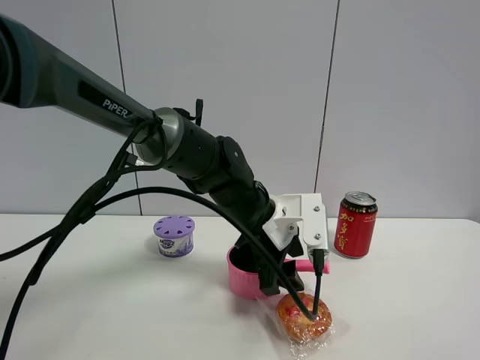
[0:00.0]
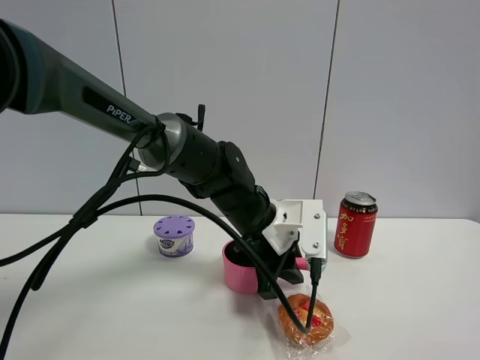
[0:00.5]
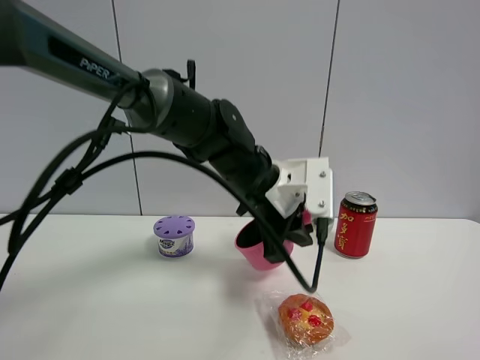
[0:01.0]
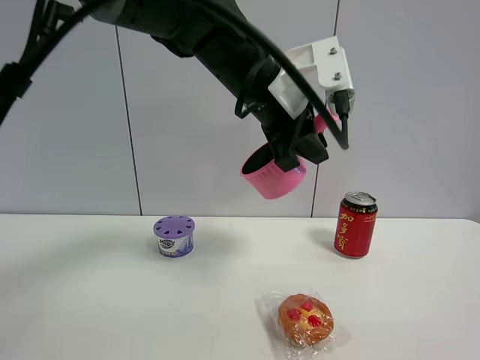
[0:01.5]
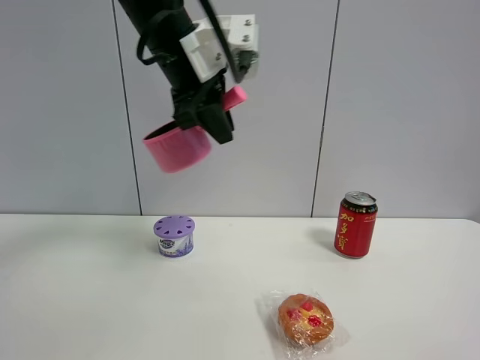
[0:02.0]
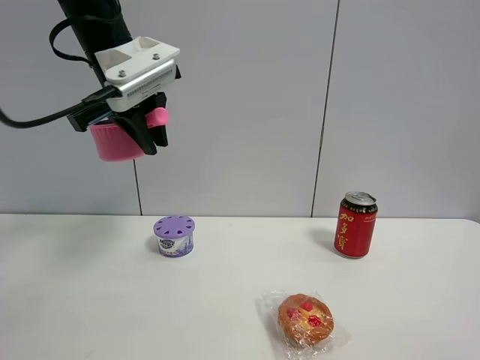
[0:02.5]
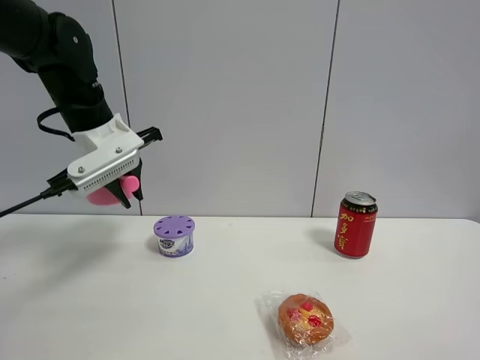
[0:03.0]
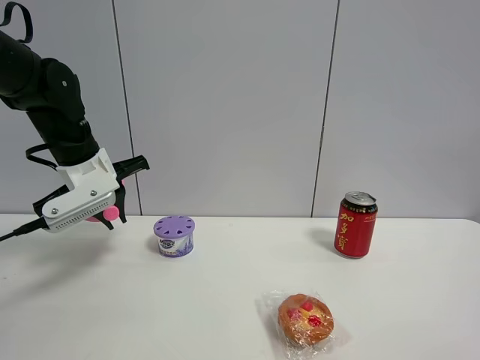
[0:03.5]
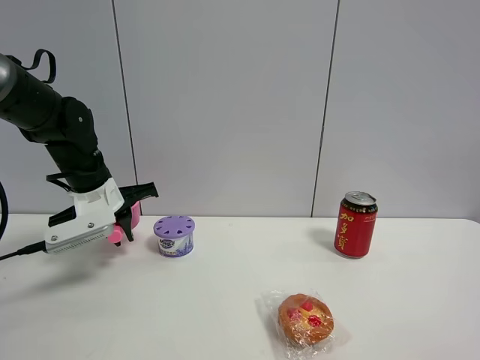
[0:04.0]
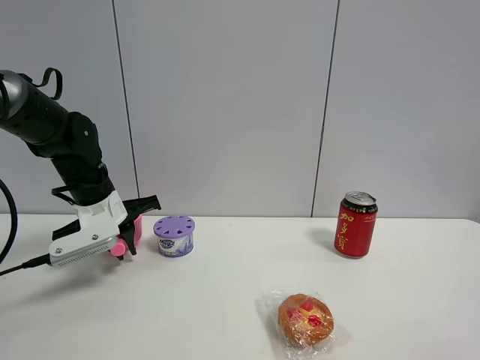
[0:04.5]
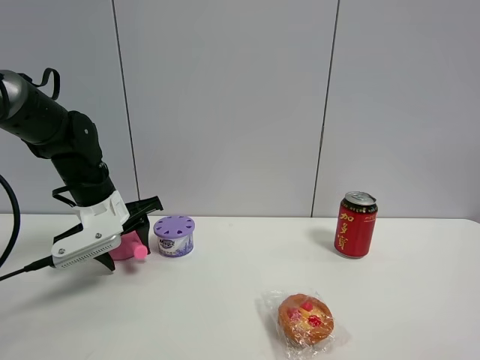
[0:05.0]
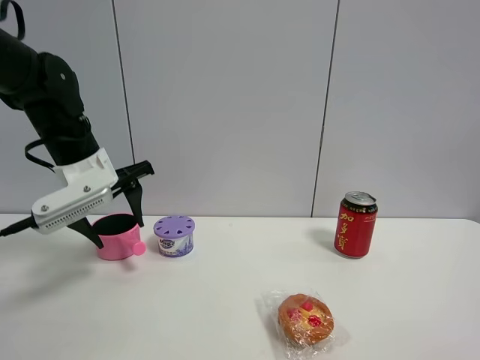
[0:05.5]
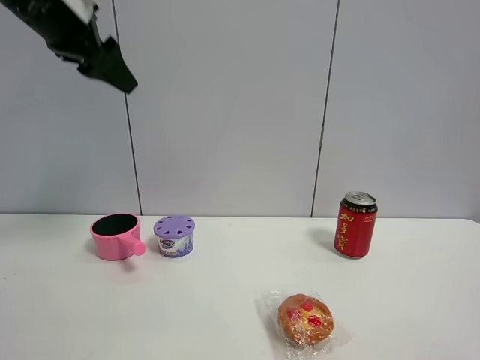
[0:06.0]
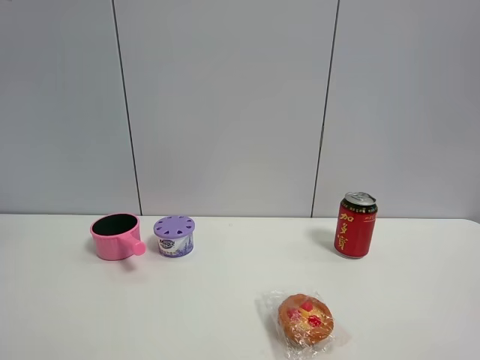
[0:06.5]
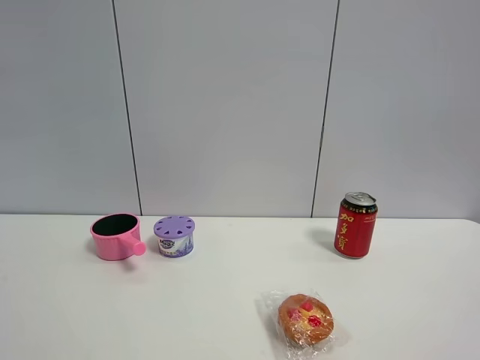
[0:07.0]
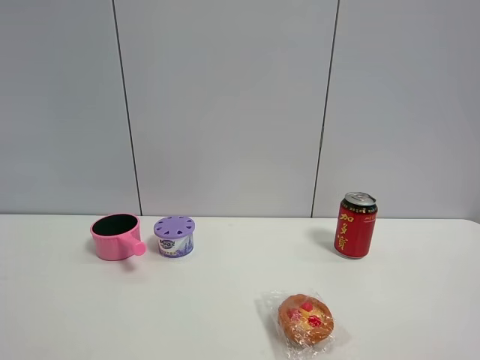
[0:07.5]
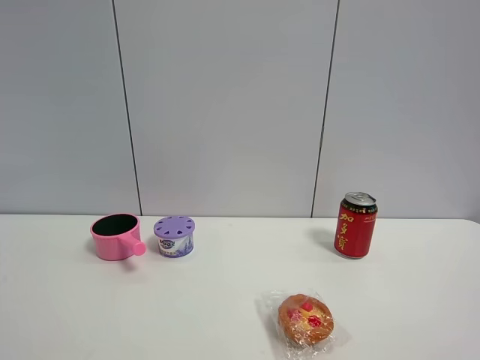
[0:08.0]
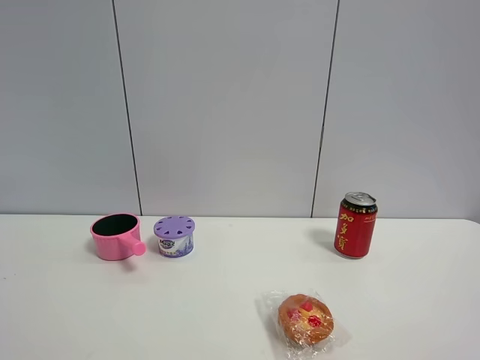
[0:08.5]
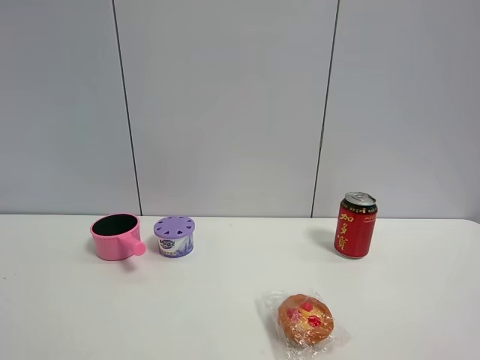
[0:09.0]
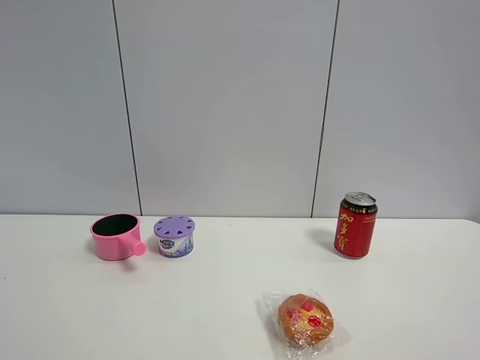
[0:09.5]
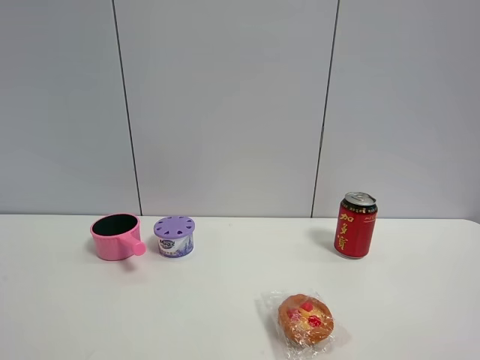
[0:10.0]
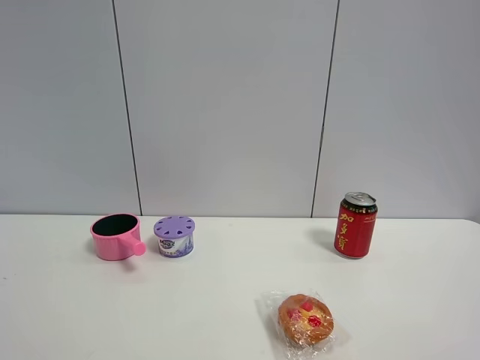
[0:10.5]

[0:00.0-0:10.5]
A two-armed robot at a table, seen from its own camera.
Task of the whole recording: the gripper move the object.
Step, 0:01.0 to 0:05.0: Place the pink pot on the table with the left gripper.
0:00.0 to 0:02.0: The left gripper shifts some 25 cm upward and to the left, and closes up.
0:02.0 to 0:04.0: The left gripper heads downward and to the left, covering roughly 25 cm.
0:04.0 to 0:06.5: The left gripper travels upward and backward by roughly 40 cm, and opens up.

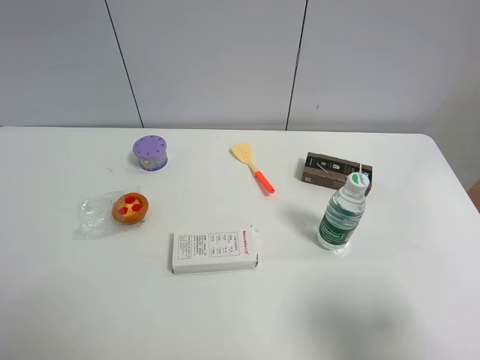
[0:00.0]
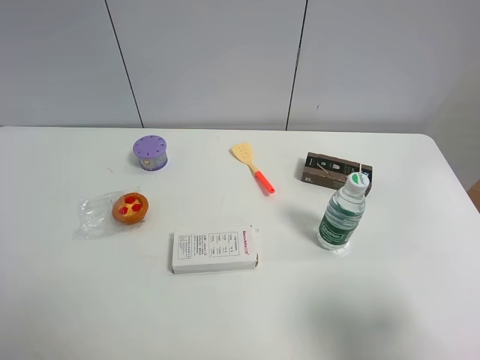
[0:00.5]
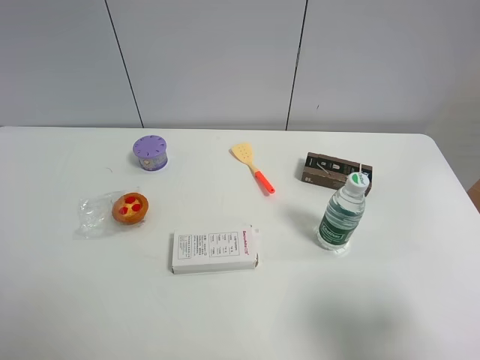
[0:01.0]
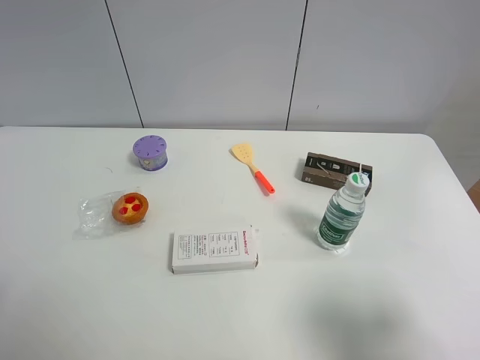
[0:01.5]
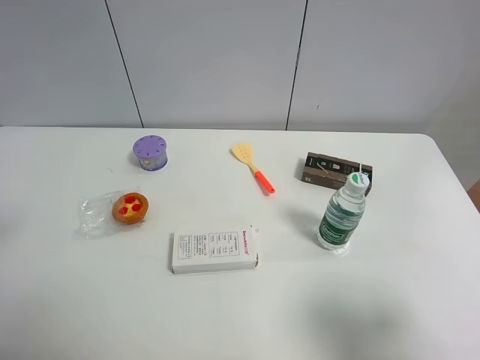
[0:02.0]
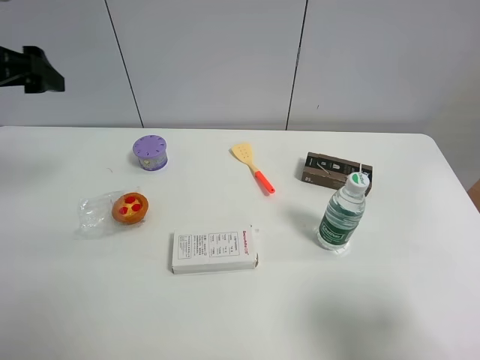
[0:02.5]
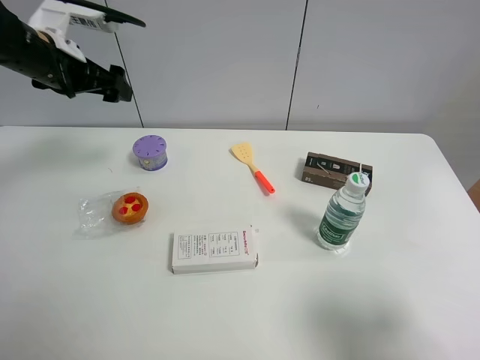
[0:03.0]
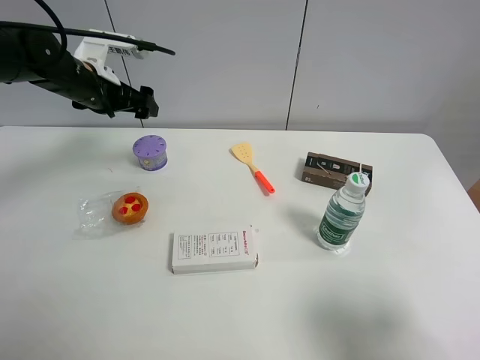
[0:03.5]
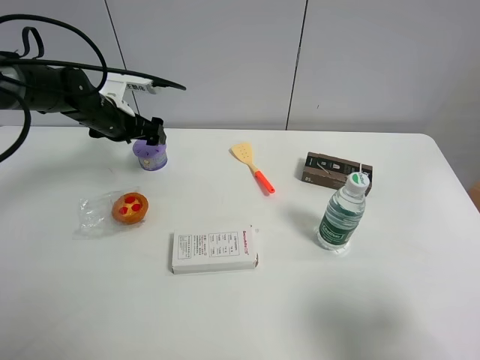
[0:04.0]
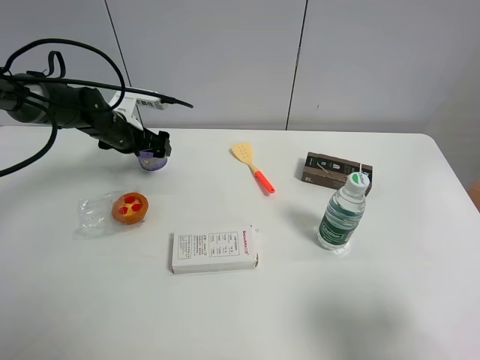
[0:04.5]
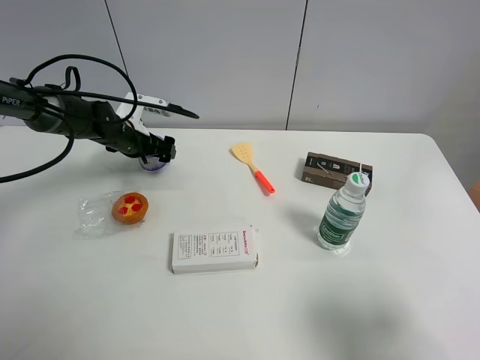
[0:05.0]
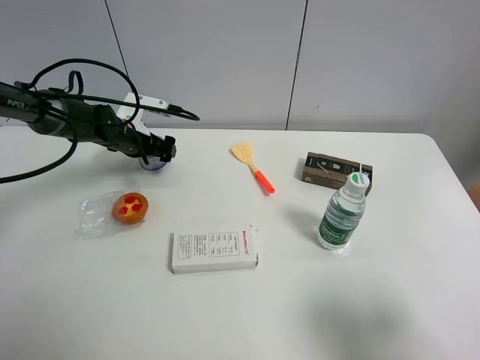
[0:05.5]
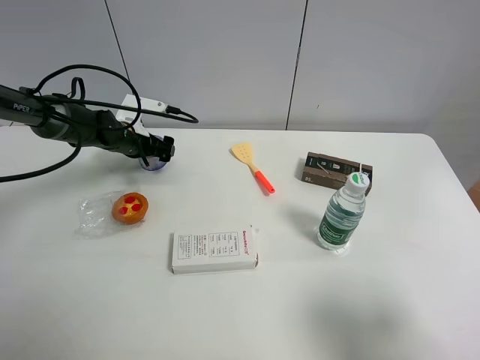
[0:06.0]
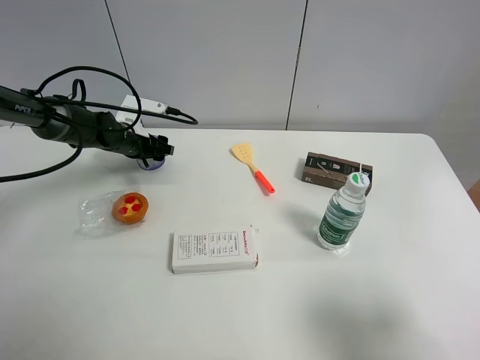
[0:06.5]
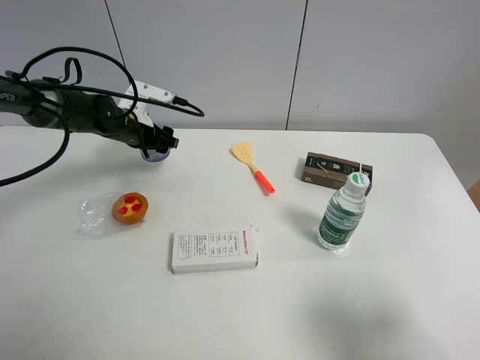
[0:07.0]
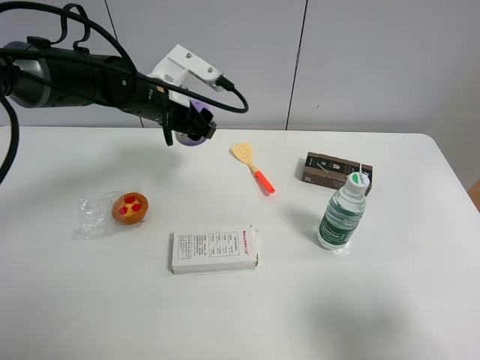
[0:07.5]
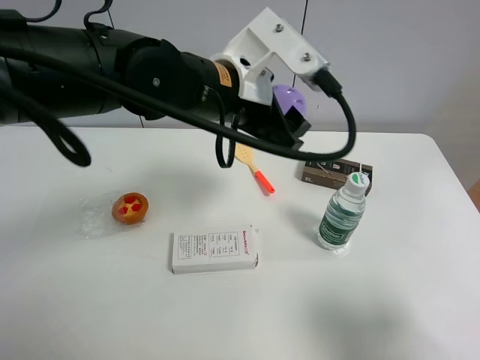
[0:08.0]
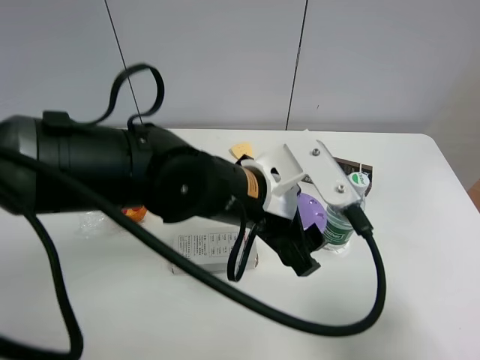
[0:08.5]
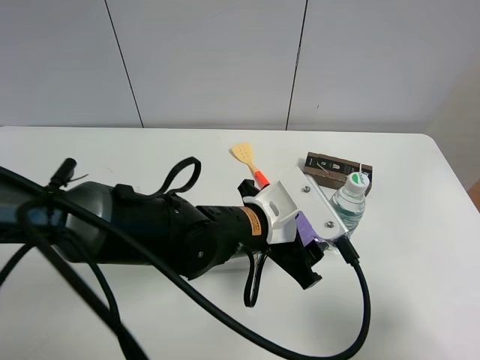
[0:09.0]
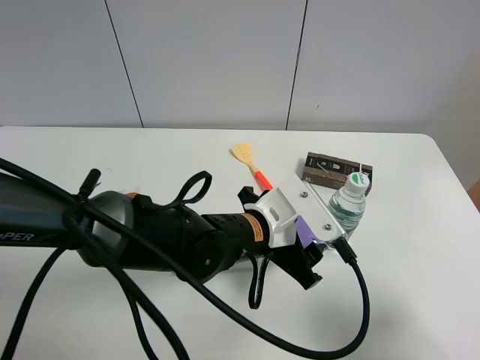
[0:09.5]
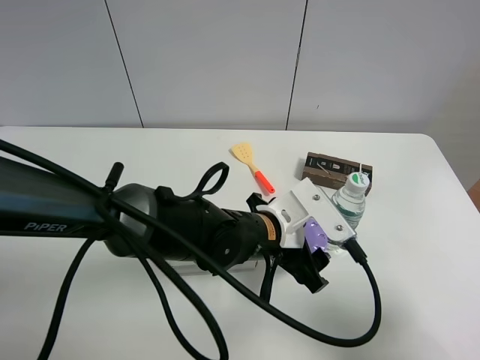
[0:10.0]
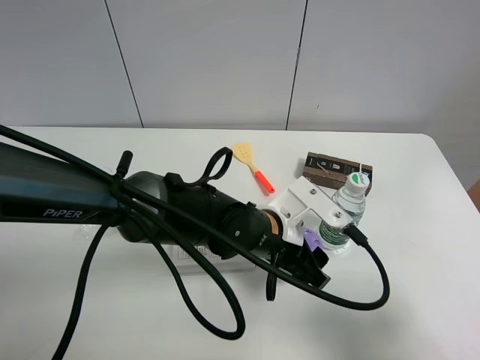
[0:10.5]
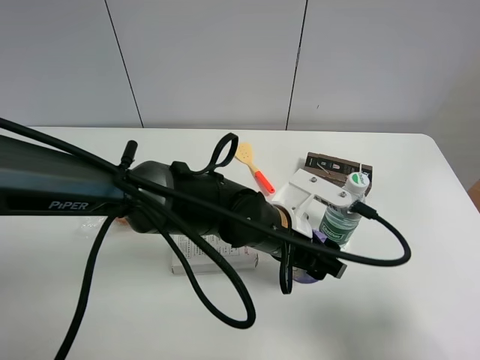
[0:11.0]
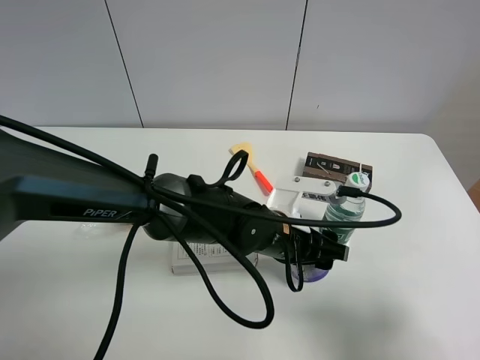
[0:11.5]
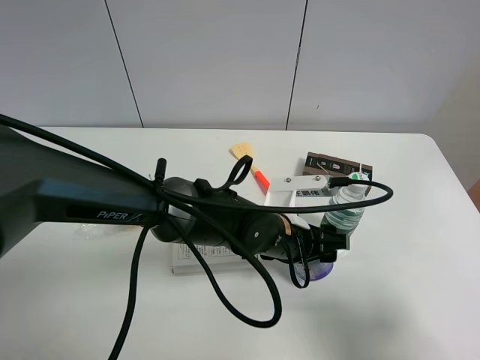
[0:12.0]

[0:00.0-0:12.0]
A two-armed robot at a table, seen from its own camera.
Task of the whole recording: the gripper move the object.
Step, 0:00.0 to 0:06.5: Grasp the Incense box with the left gripper.
0:02.0 to 0:04.0: The left gripper goes some 35 cm forward and downward.
0:04.0 to 0:06.0: The left gripper moves downward, approximately 5 cm.
0:06.0 to 0:08.0: The left gripper goes about 35 cm to the right, upward and backward, and closes its fingers.
0:08.0 to 0:10.0: The left gripper heads downward and backward, covering roughly 15 cm.

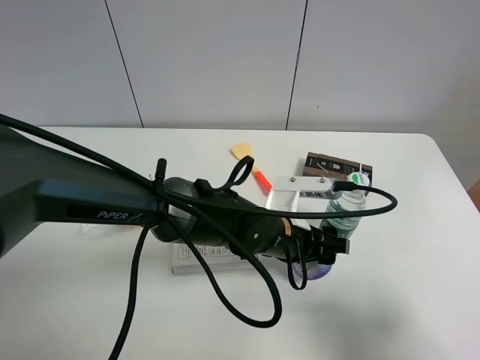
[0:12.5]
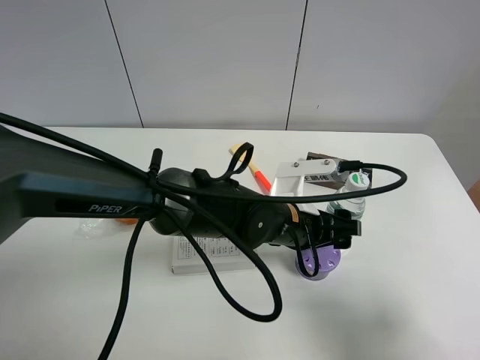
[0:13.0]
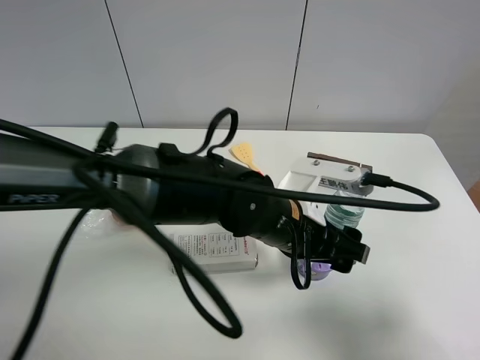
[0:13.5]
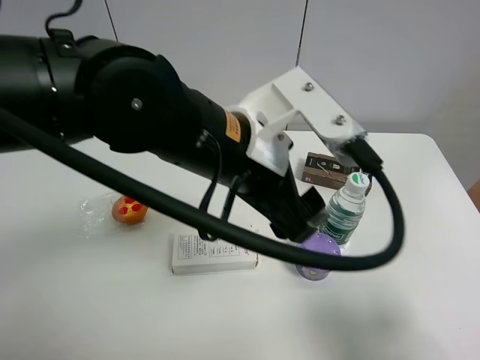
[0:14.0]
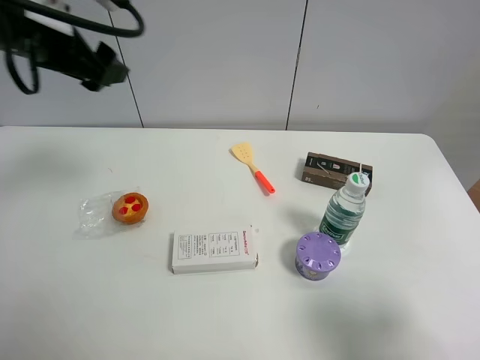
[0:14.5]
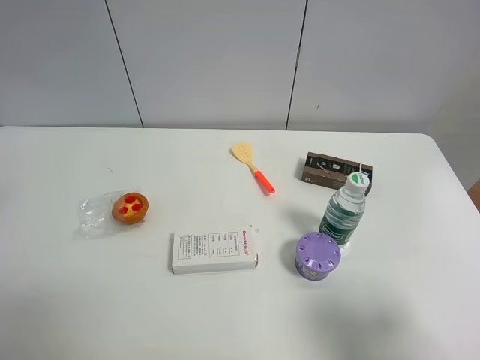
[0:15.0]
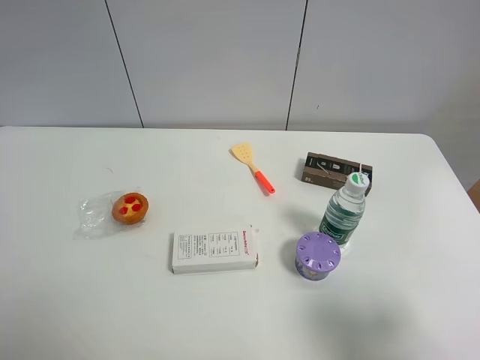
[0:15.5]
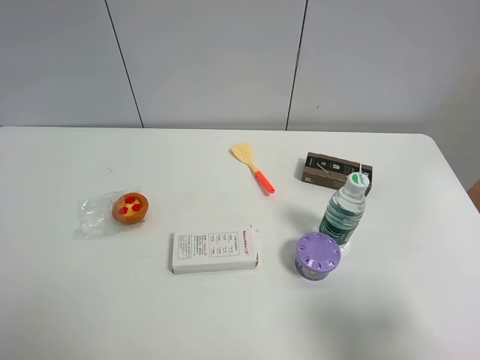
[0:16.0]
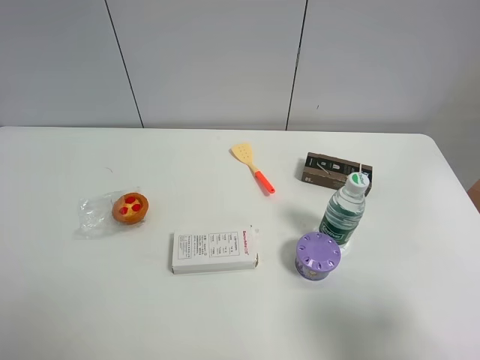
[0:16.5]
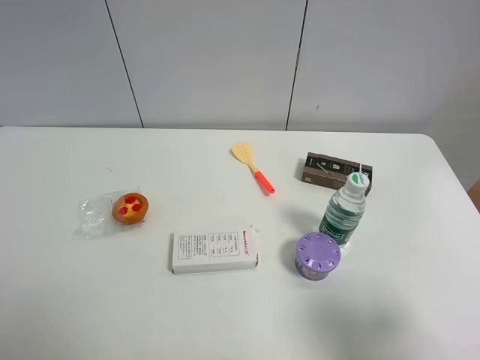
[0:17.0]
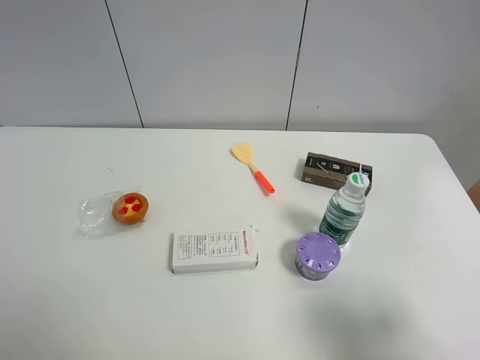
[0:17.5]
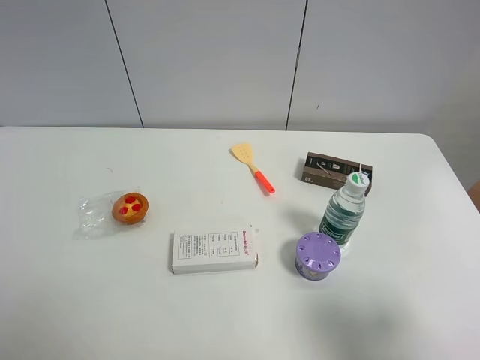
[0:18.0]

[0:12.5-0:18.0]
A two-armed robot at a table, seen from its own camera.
Task of the whole recording: the gripper move the object.
0:12.5 to 0:14.5: The left gripper heads to the left and upward, covering approximately 40 cm.
0:14.5 to 0:16.0: The left gripper goes some 30 cm backward, and opens.
